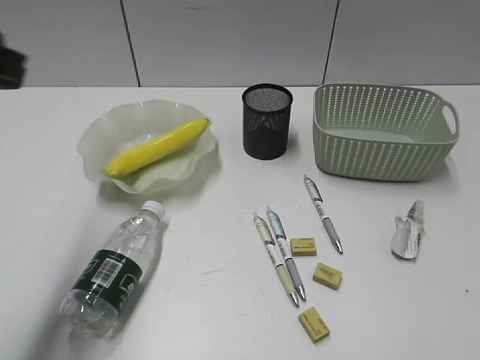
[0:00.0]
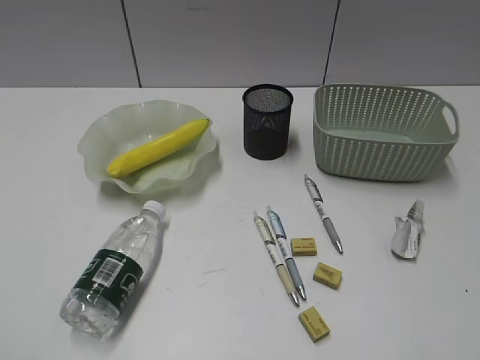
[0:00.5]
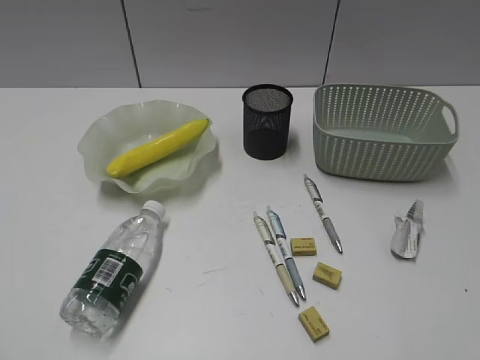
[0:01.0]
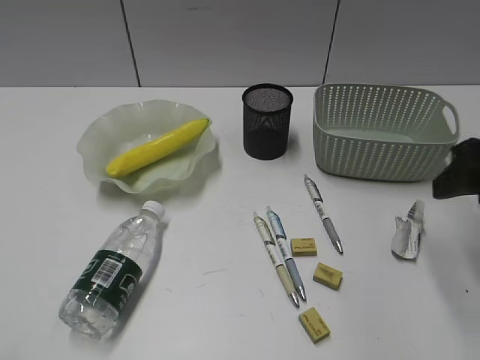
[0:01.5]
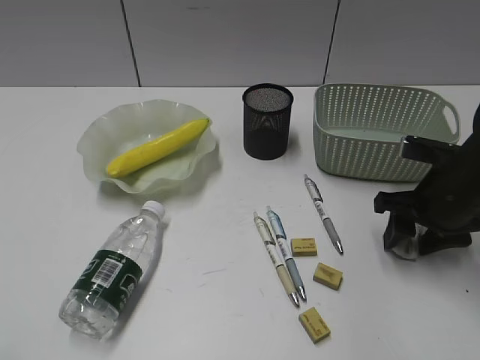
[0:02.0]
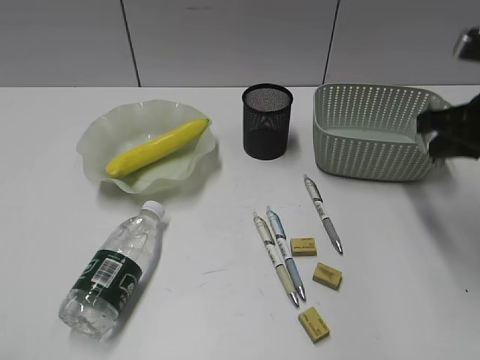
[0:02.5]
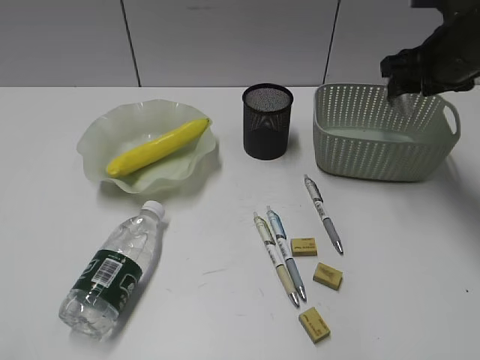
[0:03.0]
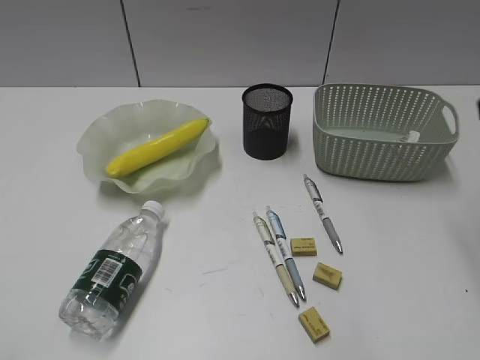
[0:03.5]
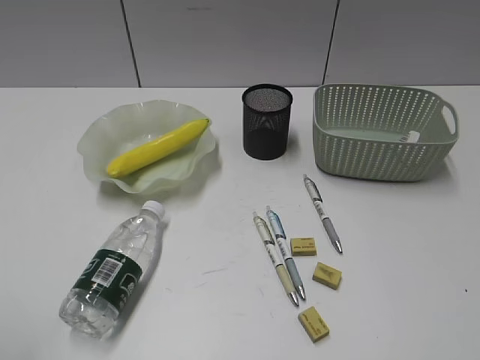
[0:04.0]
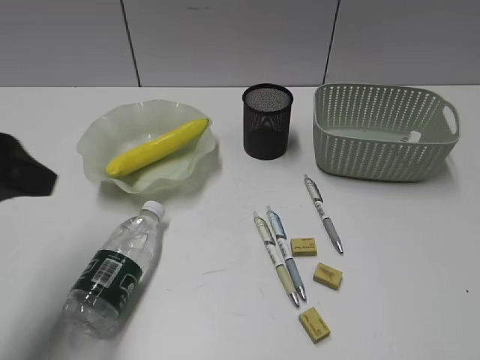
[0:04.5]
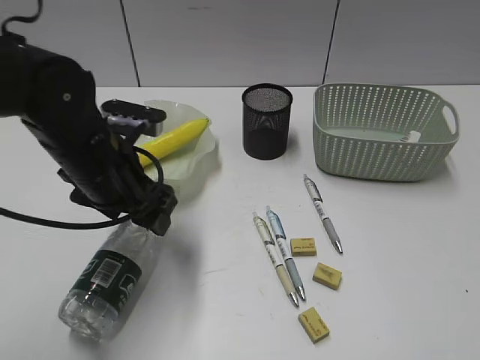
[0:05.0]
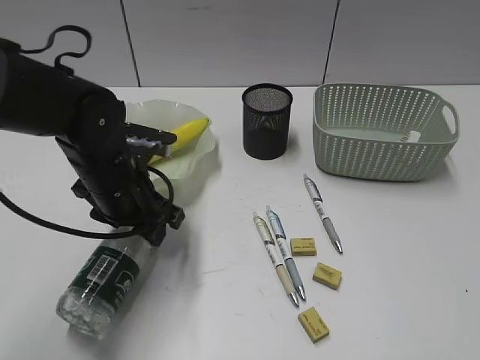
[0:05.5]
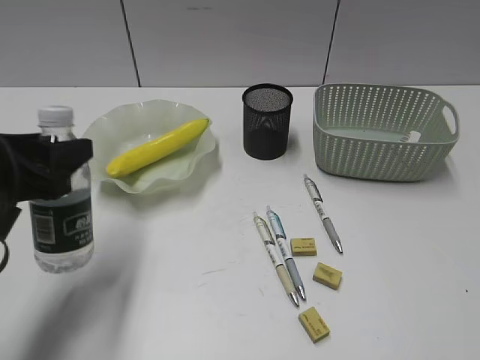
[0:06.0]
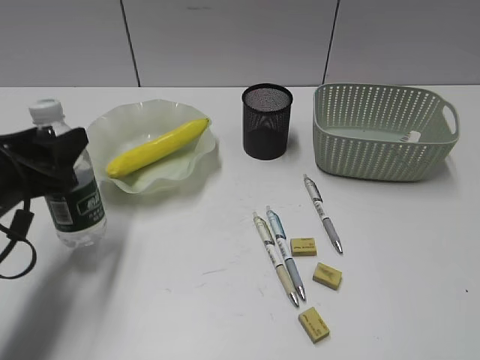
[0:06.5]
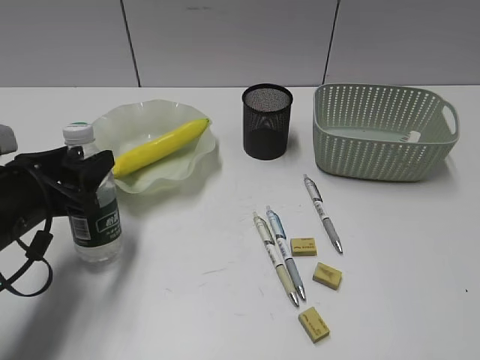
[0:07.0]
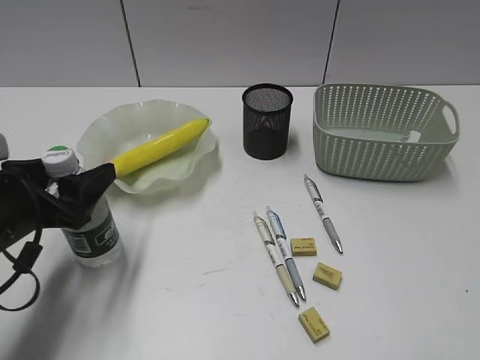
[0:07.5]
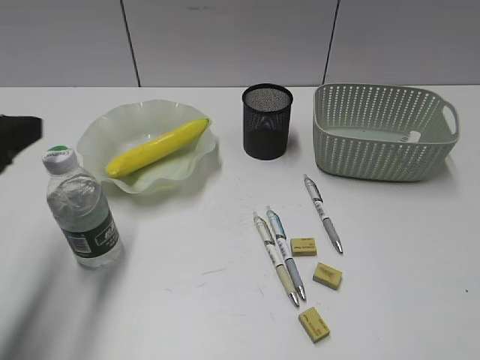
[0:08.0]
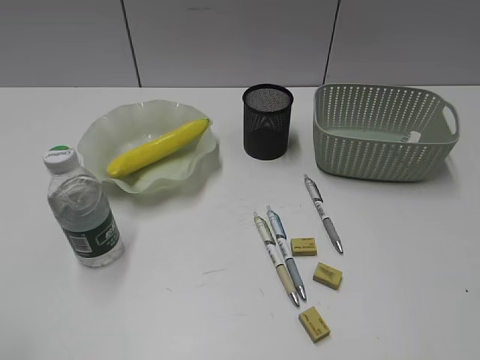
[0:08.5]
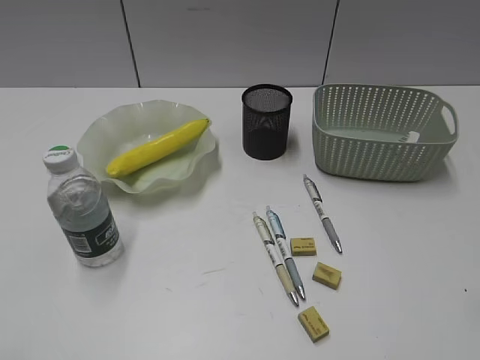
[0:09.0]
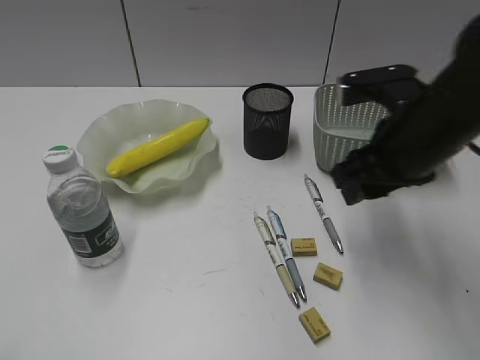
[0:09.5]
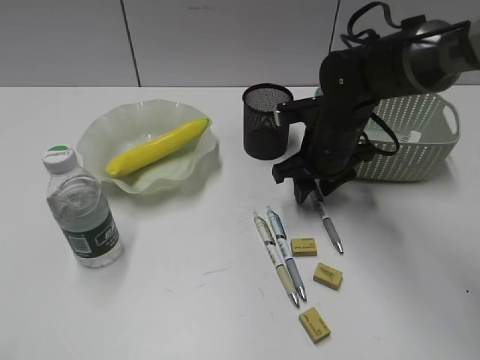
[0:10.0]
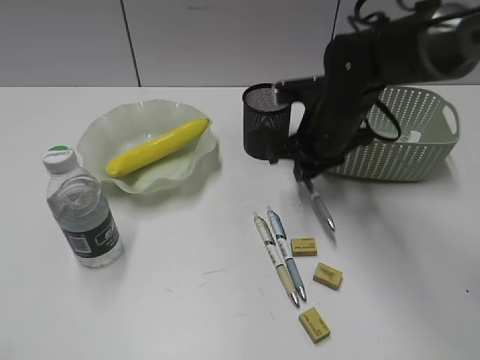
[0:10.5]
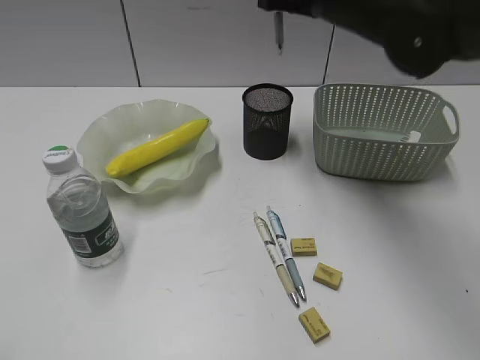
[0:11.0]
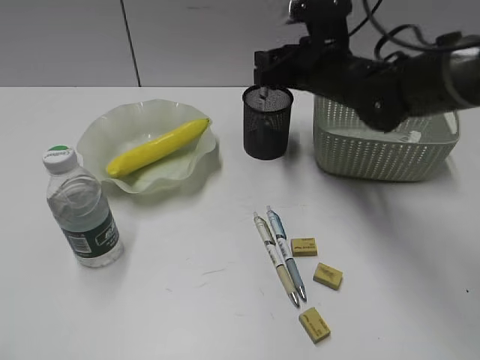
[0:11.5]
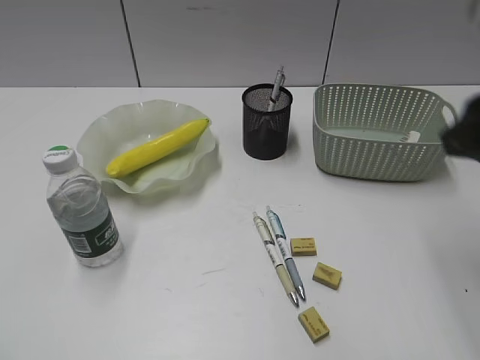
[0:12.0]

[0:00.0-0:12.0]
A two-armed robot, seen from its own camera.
Step, 0:00.0 to 0:02.0: Grasp the waste paper with right gripper.
Step, 0:02.5 to 0:03.0: Place the waste paper in the basket with right gripper.
Step, 0:03.5 to 0:05.0: Grasp the bottle with left gripper.
Step, 0:05.5 to 0:07.5: Stand the bottle with left gripper.
Step, 0:08.0 to 0:10.0: Grasp the gray pen with right gripper.
Step, 0:10.5 to 0:11.5: Place the gray pen in pen holder with right gripper.
0:00.0 to 0:02.0: The right gripper moves forward and downward, about 35 cm, and opens; the left gripper heads backward, covering some 20 cm.
0:02.0 to 0:04.0: The right gripper heads backward and upward, covering roughly 35 cm, and closes and opens again.
0:04.0 to 0:06.0: The left gripper travels forward, downward and to the right by about 20 cm.
0:08.0 to 0:10.0: The left gripper moves backward, about 20 cm; the right gripper shifts some 50 cm forward, to the left and downward.
0:10.0 to 0:12.0: The right gripper moves backward, upward and to the right, approximately 30 cm, and closes, then reopens.

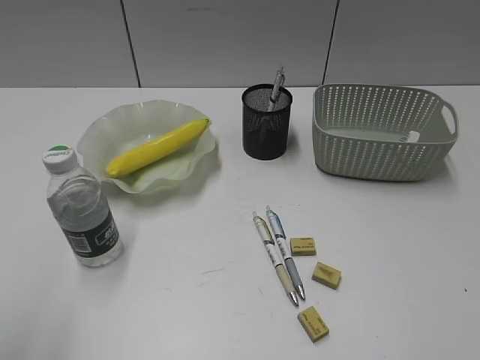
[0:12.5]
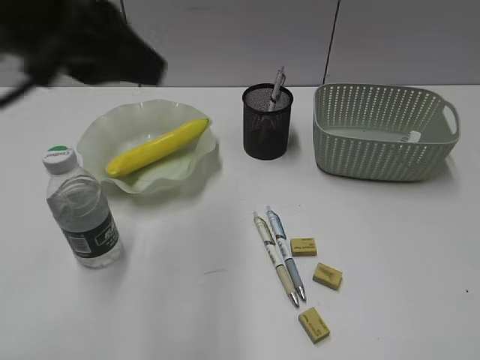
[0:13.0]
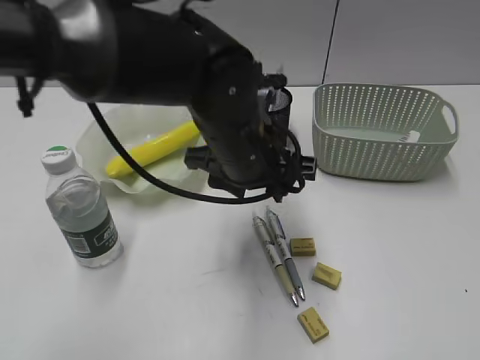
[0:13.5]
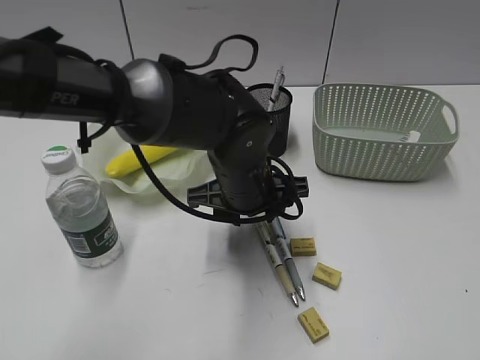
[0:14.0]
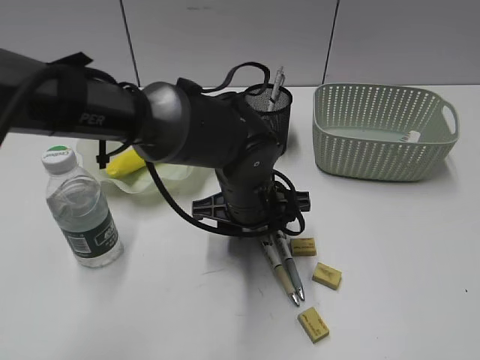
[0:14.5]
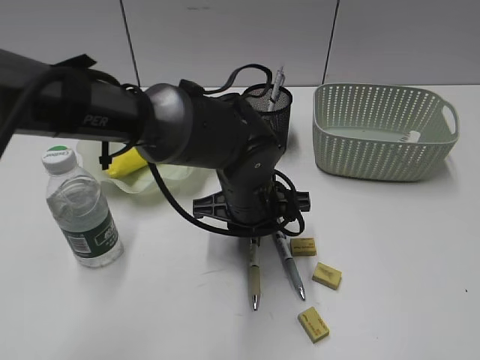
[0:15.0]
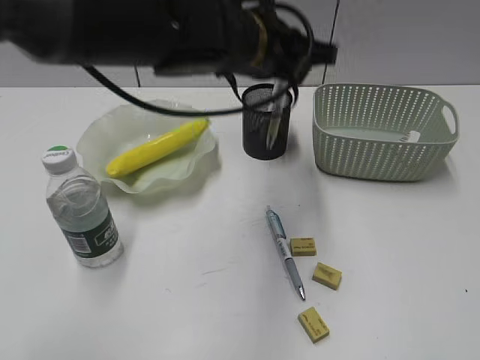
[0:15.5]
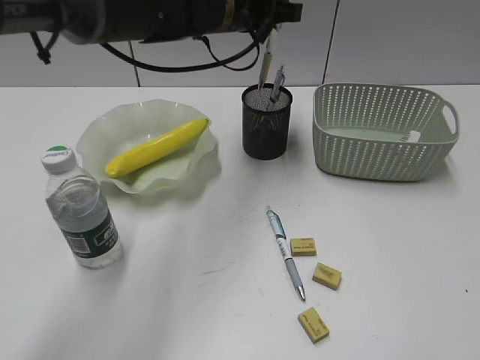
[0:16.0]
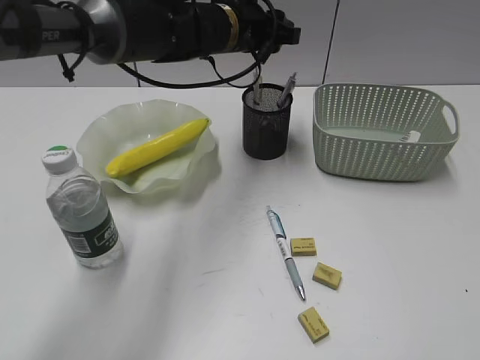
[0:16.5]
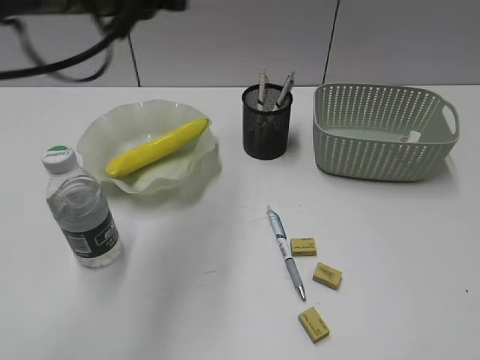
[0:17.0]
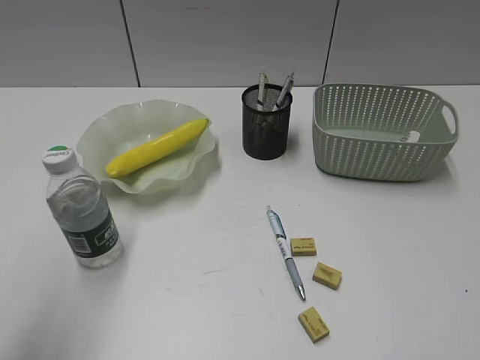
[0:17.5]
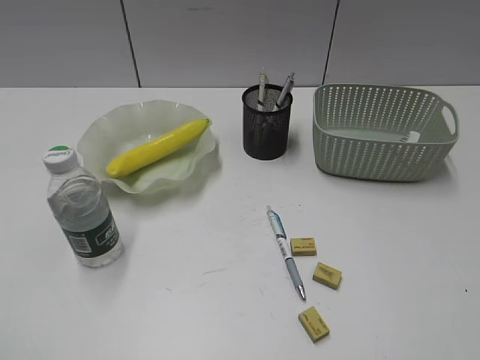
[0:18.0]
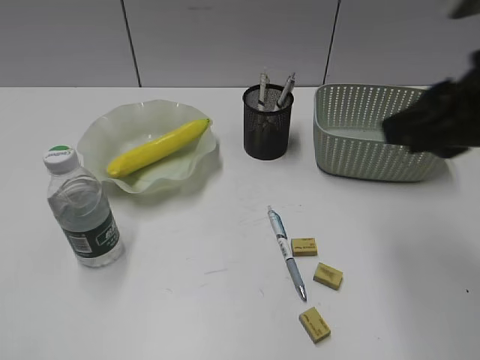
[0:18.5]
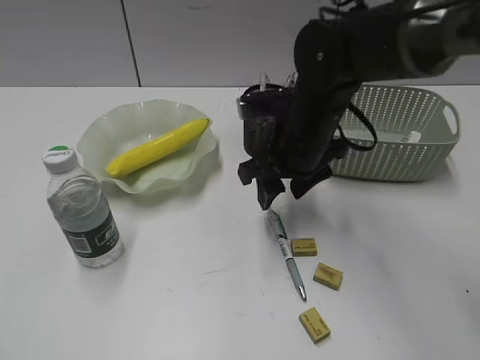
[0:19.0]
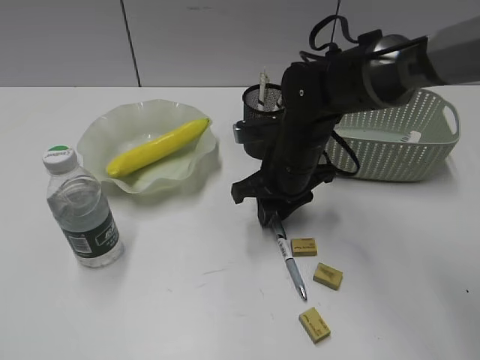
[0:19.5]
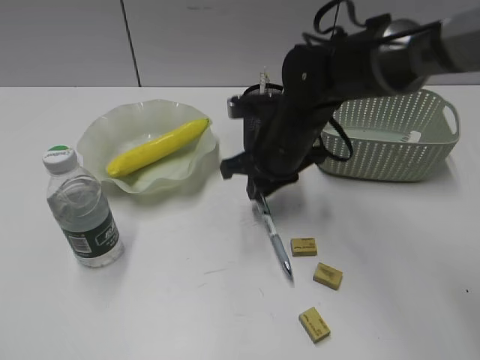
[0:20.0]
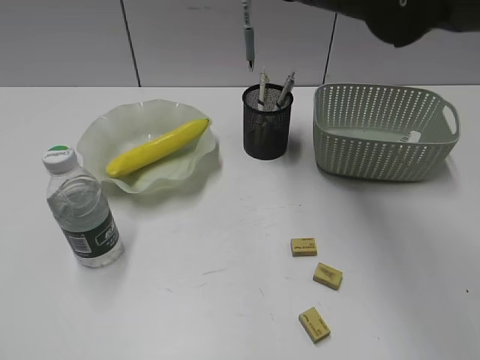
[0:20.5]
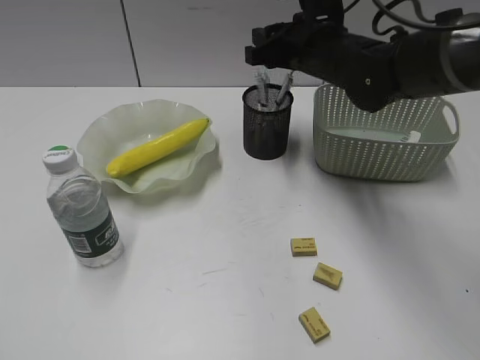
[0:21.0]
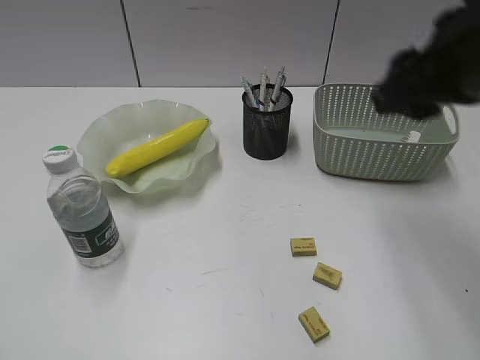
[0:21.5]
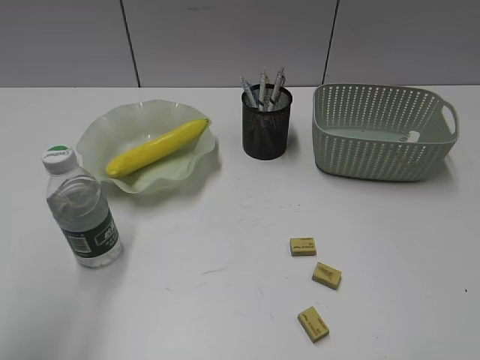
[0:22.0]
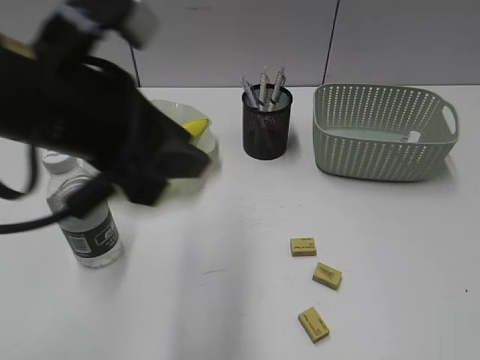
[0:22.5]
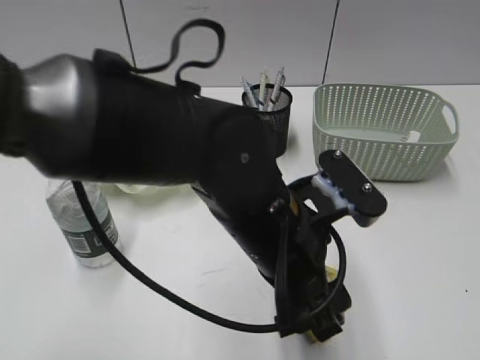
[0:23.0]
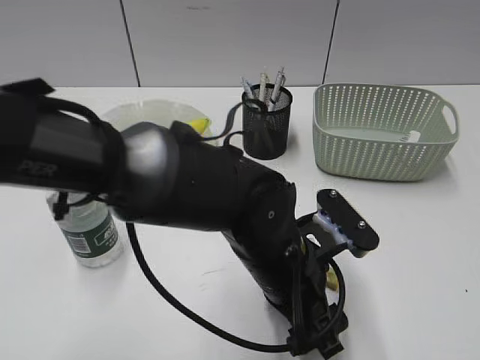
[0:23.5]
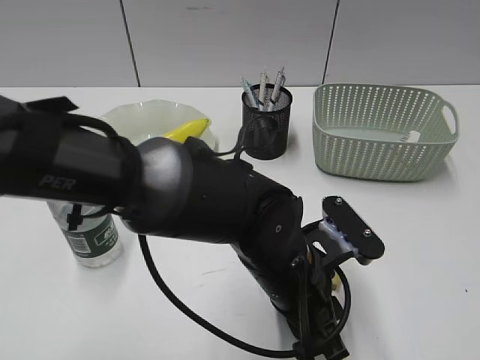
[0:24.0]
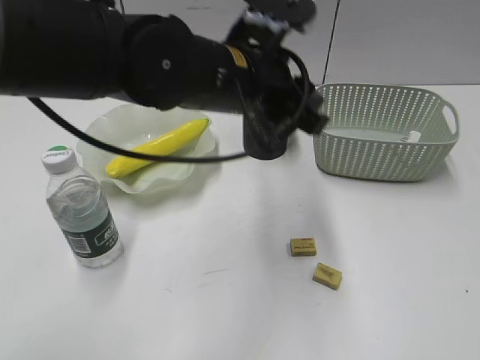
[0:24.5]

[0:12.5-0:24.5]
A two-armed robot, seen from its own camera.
Step, 0:12.5 to 0:15.0: Grasp the yellow pen with left gripper.
Step, 0:15.5 to 0:16.0: Place the yellow pen in pen holder with left gripper.
Step, 0:16.5 to 0:19.5: Grasp the blue pen with right gripper.
Step, 0:20.0 to 0:21.0: Place the blue pen in pen holder with right gripper.
Step, 0:21.5 to 0:24.0: Grasp the eraser with left gripper.
0:12.5 to 0:14.5: The left gripper goes some 40 cm to the right, forward and downward.
0:14.5 to 0:16.5: The left gripper goes some 20 cm forward and upward, and closes, then reopens.
0:16.5 to 0:18.5: The left gripper shifts roughly 60 cm backward and to the left; the right gripper heads forward and to the left, covering about 25 cm.
0:18.5 to 0:20.5: The right gripper heads forward and to the left, covering approximately 20 cm, reaches roughly 20 cm downward, then returns, and opens, then closes once more.
0:20.5 to 0:22.5: The right gripper shifts some 40 cm backward and to the right, and opens its fingers. Meanwhile the left gripper travels to the right and forward by about 30 cm.
0:22.5 to 0:24.5: The left gripper moves to the right and forward, approximately 15 cm, travels downward and back again, about 20 cm each way, and opens and closes again.

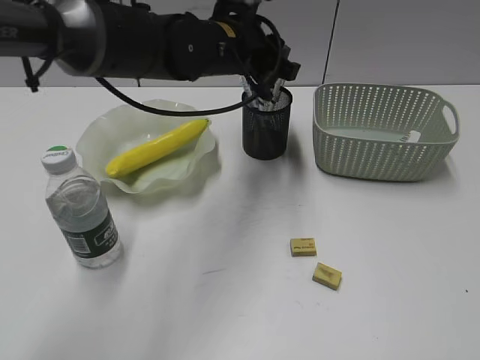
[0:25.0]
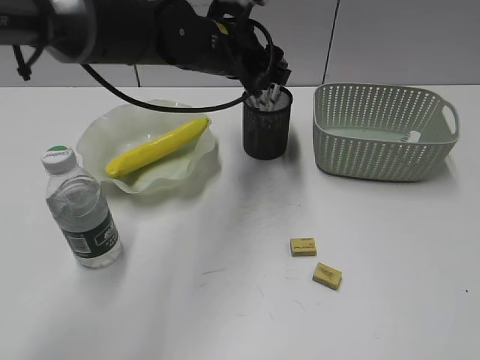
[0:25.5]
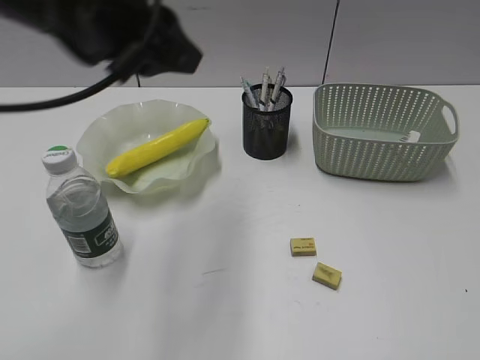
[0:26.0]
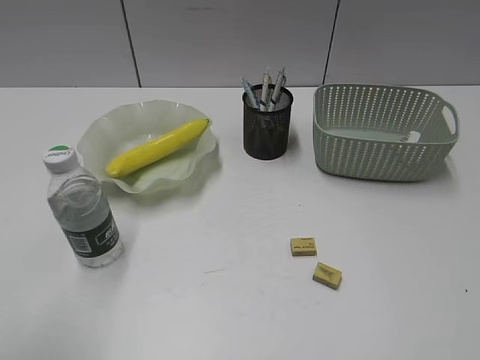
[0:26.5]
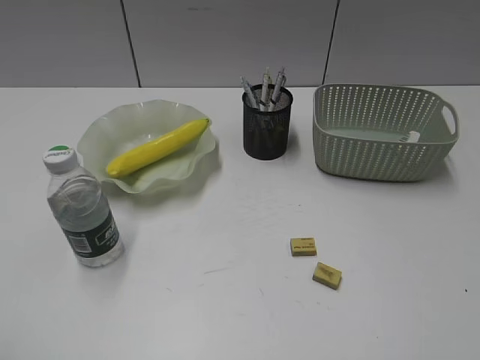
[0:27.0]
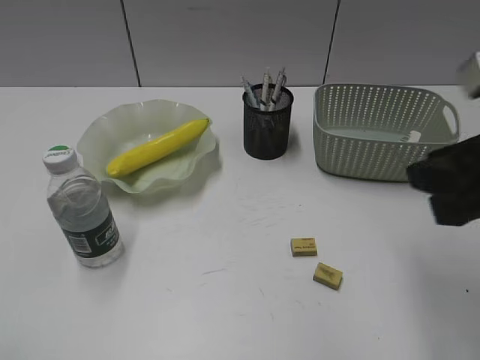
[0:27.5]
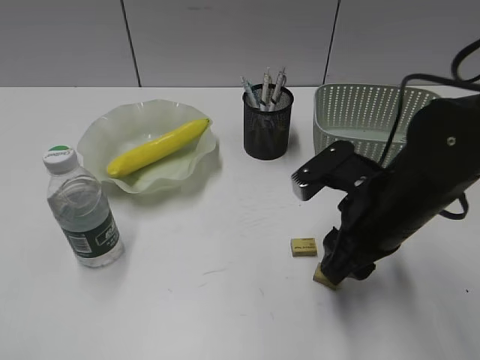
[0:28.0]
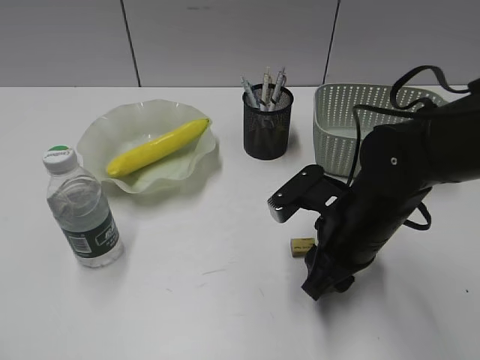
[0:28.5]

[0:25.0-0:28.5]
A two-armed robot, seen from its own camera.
0:25.0 to 0:27.0: The left gripper heads backward and to the left, covering about 50 cm.
0:27.0 to 0:28.5: The right gripper travels forward, downward and to the left by approximately 35 cm.